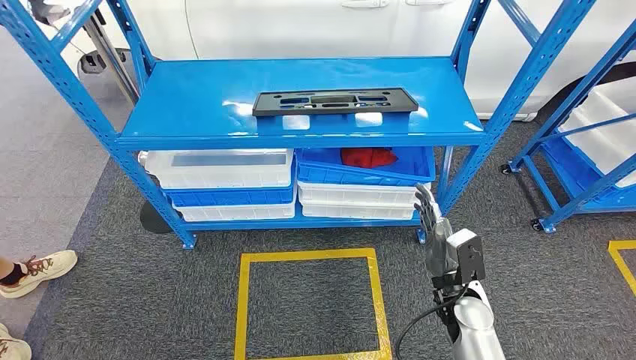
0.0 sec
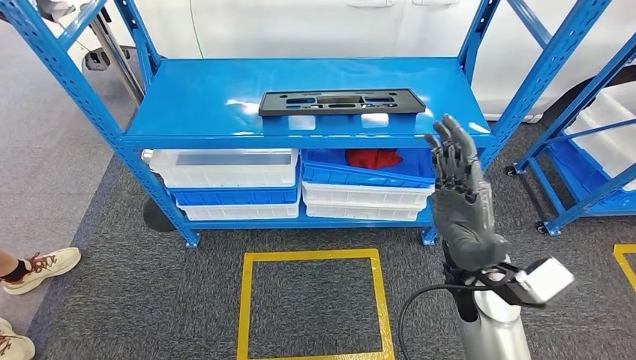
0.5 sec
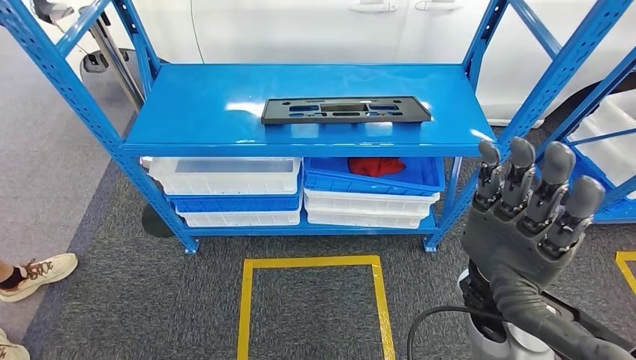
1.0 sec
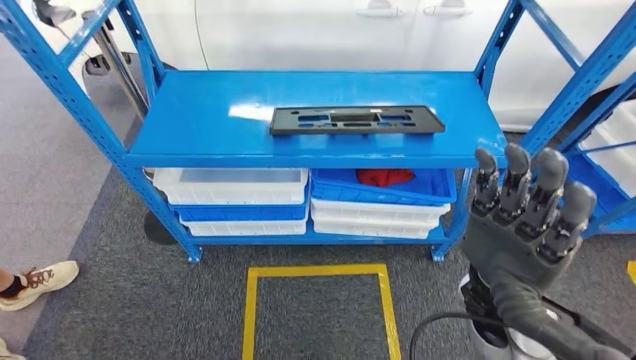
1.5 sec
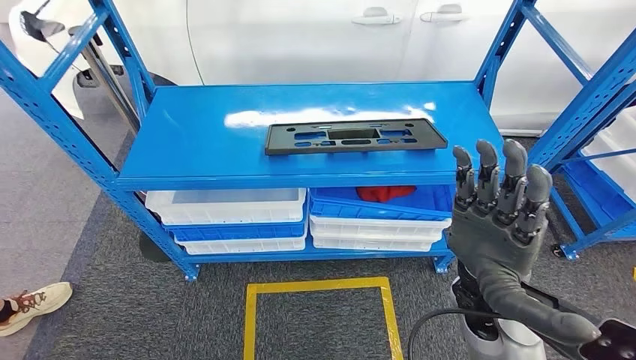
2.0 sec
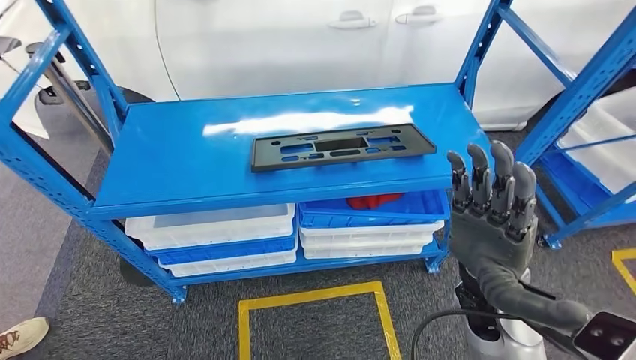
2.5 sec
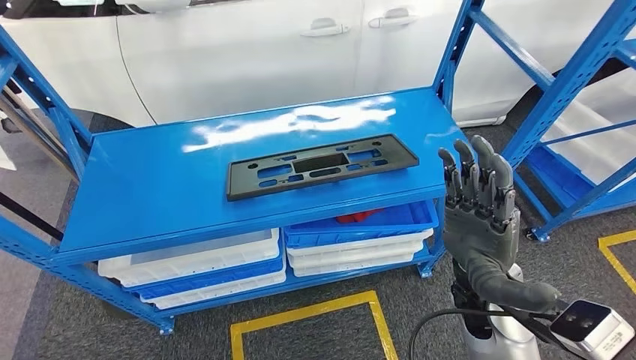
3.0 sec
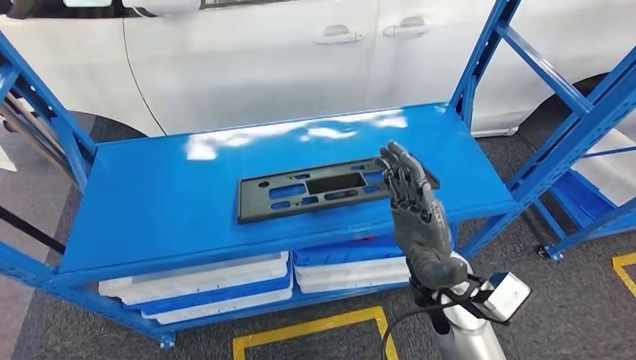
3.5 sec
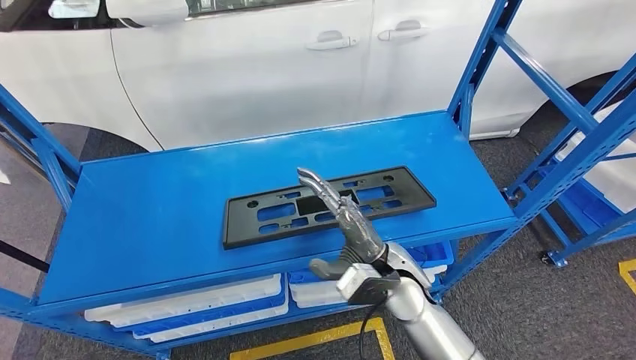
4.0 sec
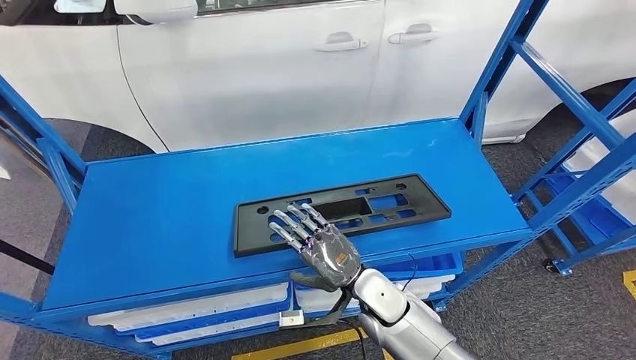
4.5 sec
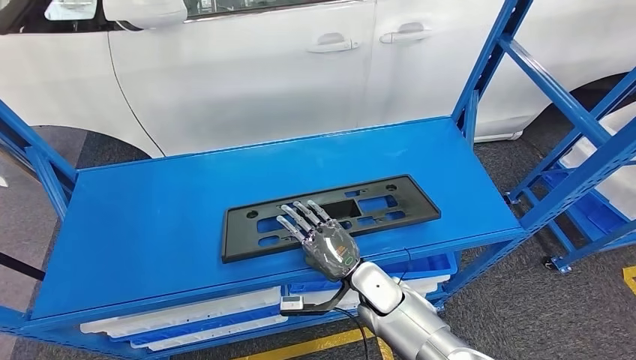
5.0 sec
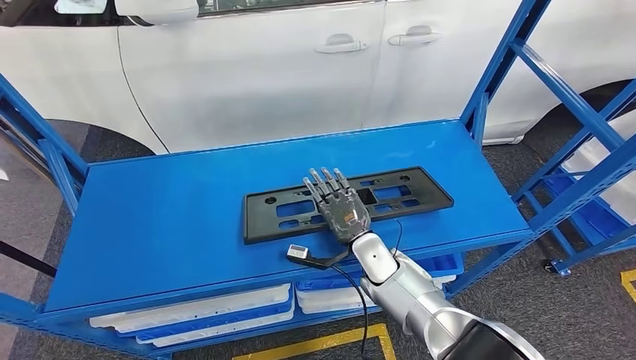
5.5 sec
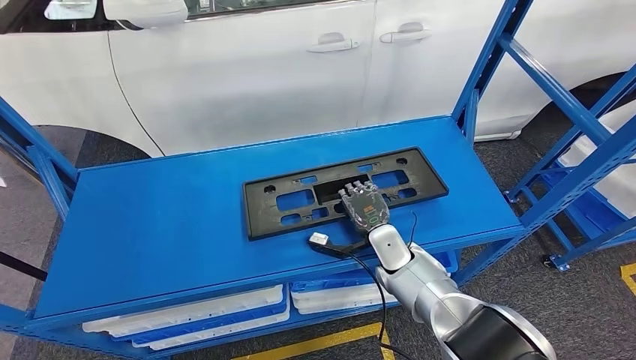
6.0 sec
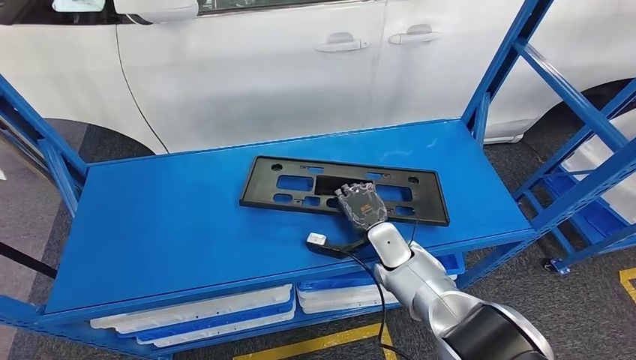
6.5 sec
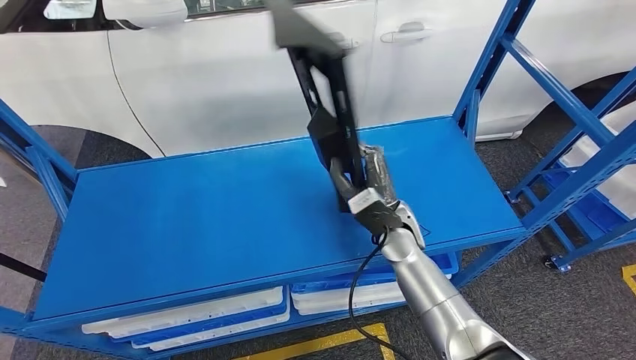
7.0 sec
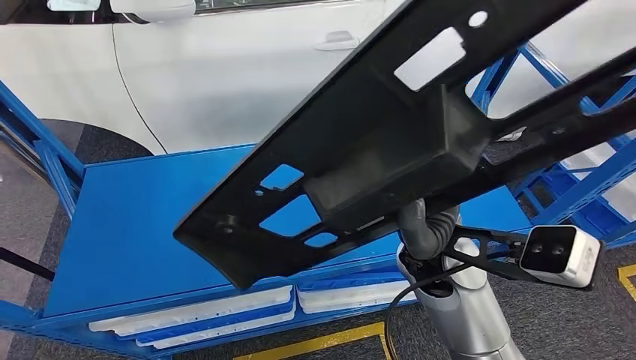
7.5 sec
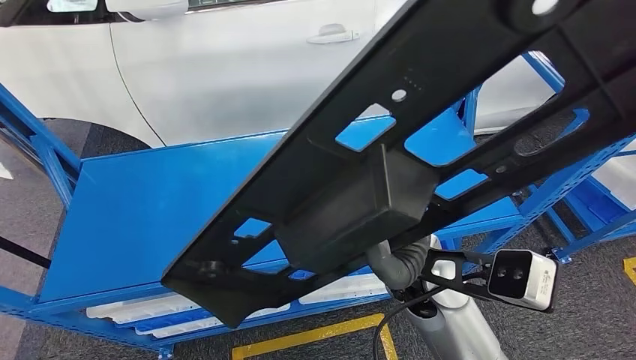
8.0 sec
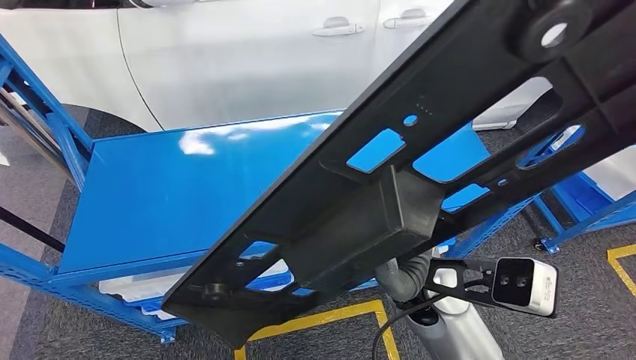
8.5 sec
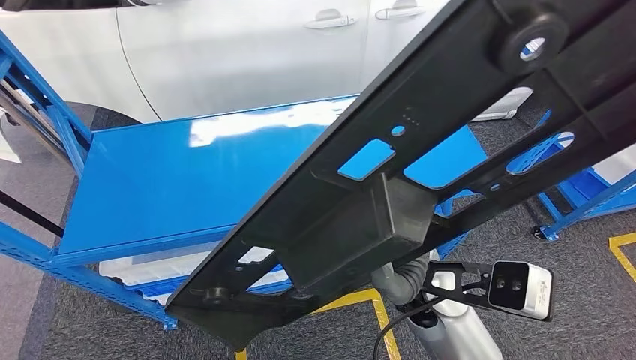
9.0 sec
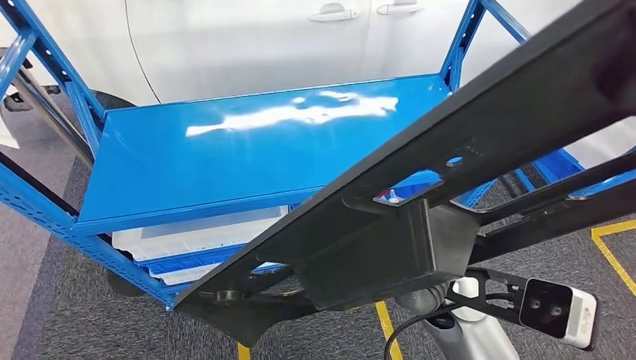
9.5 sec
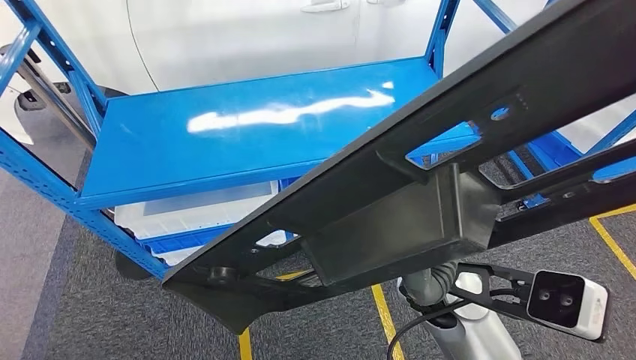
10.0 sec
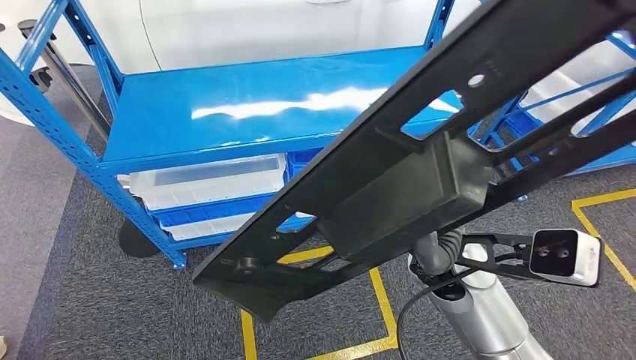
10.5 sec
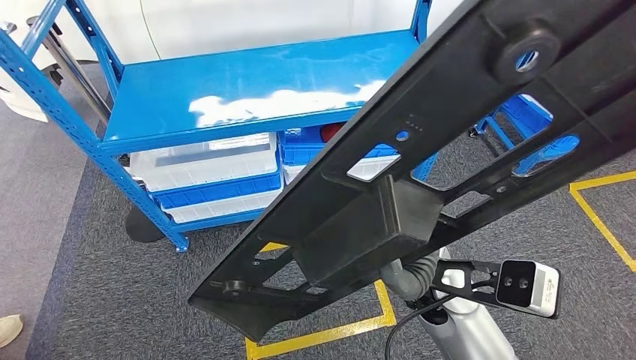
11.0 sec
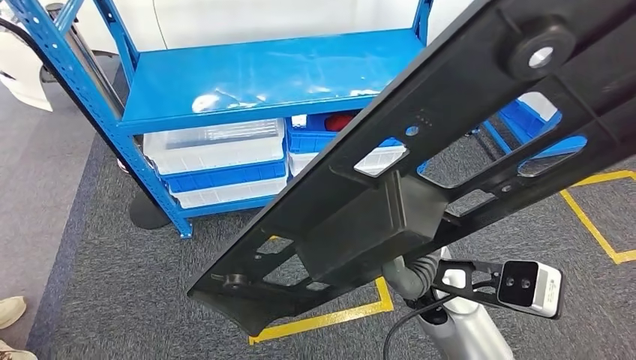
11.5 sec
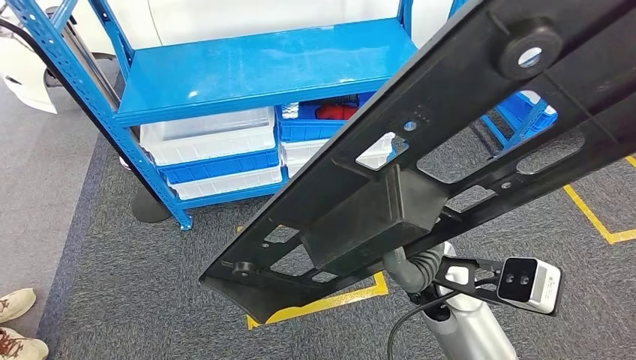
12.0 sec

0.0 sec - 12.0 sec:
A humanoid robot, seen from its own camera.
Step, 0.0 sec - 7.5 sec: Pick up the large material from the shelf.

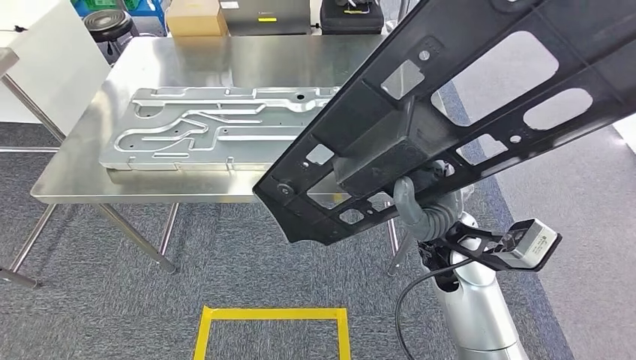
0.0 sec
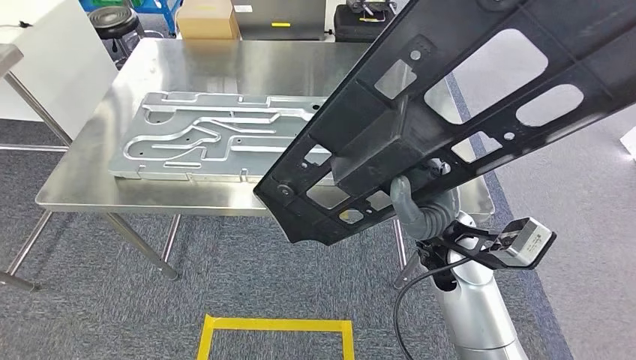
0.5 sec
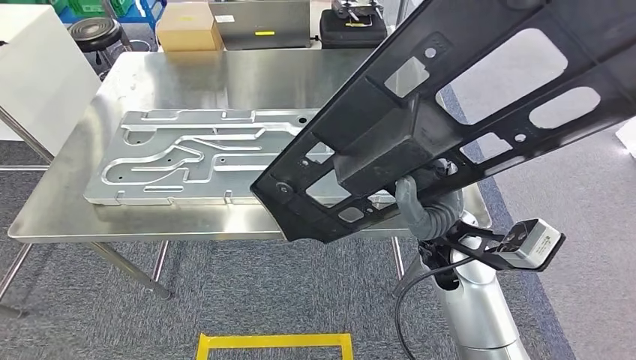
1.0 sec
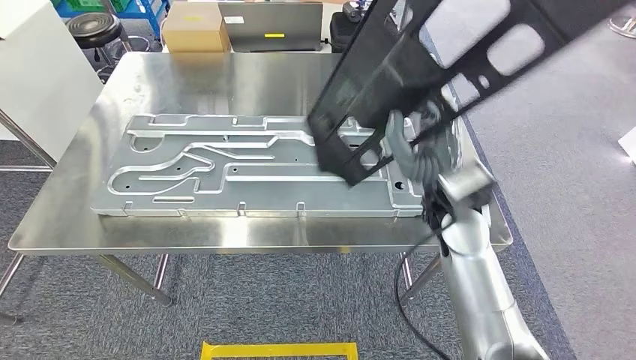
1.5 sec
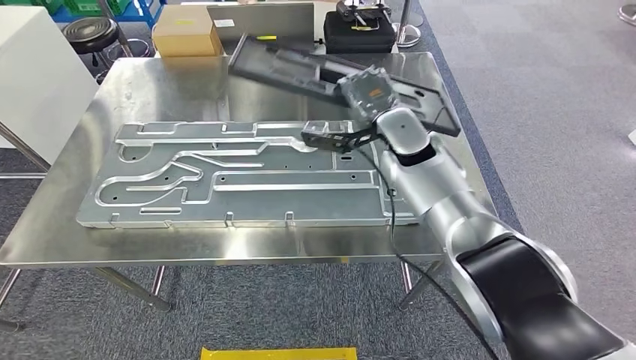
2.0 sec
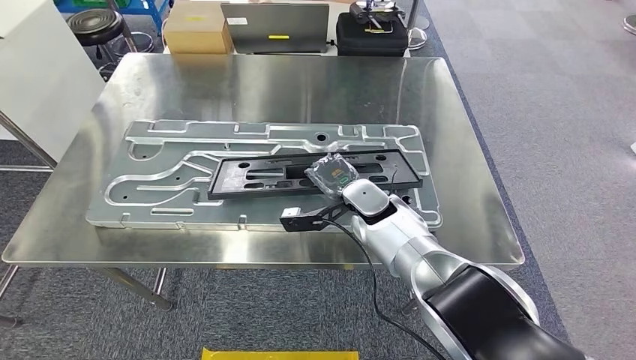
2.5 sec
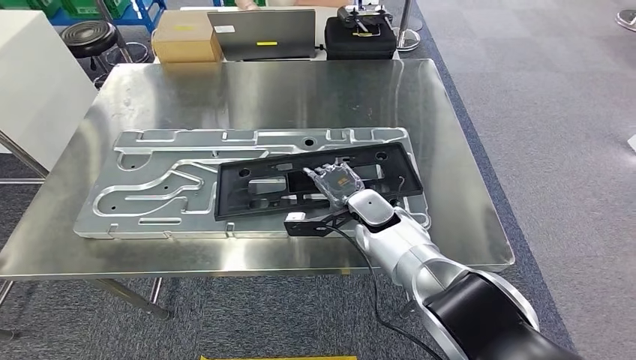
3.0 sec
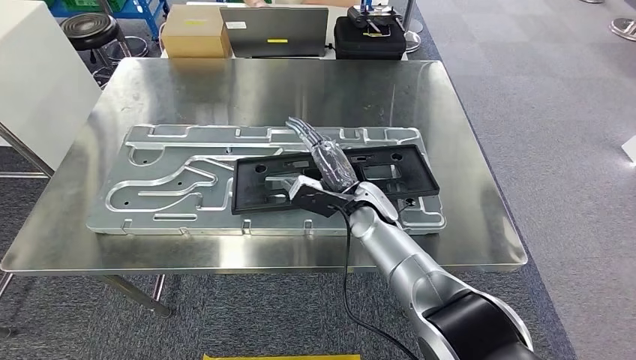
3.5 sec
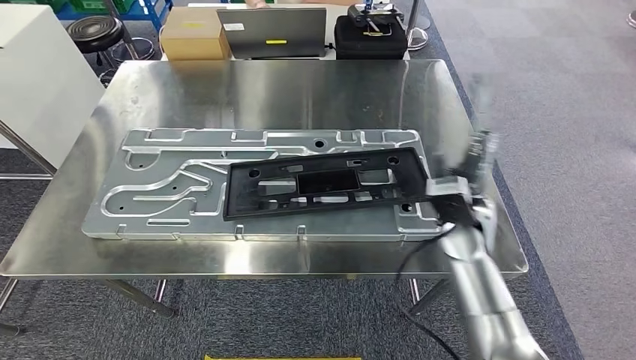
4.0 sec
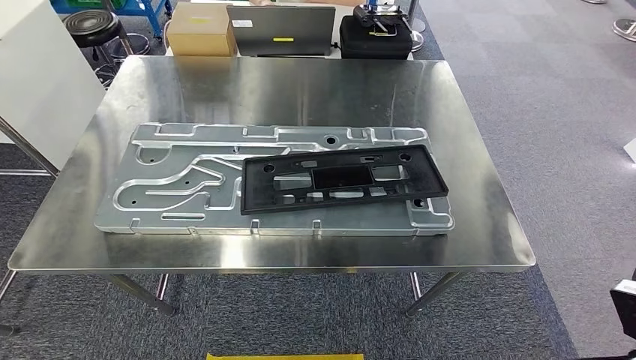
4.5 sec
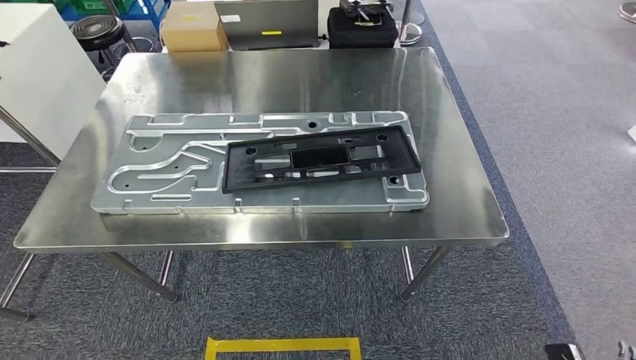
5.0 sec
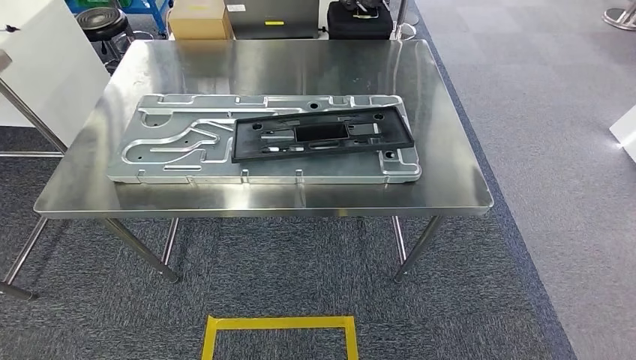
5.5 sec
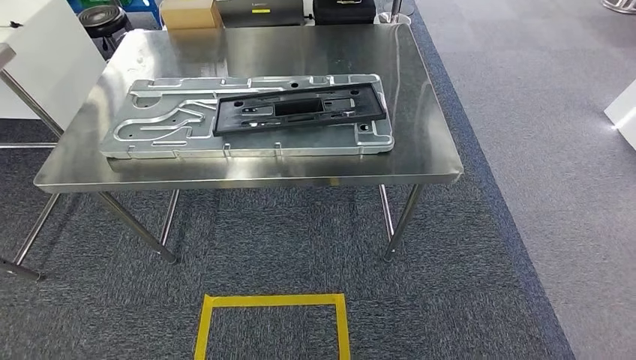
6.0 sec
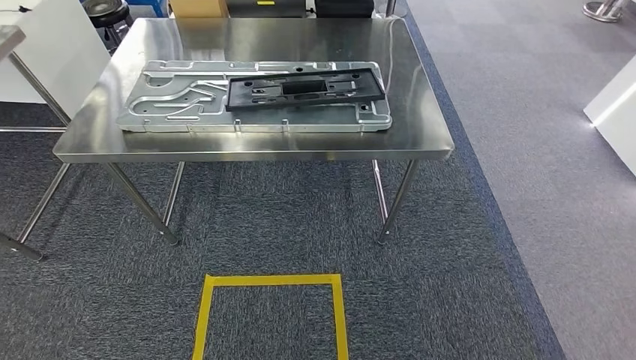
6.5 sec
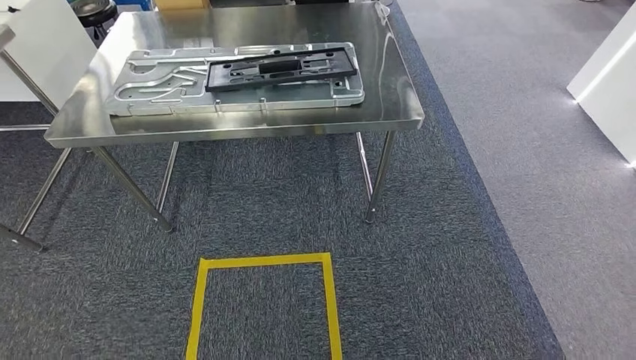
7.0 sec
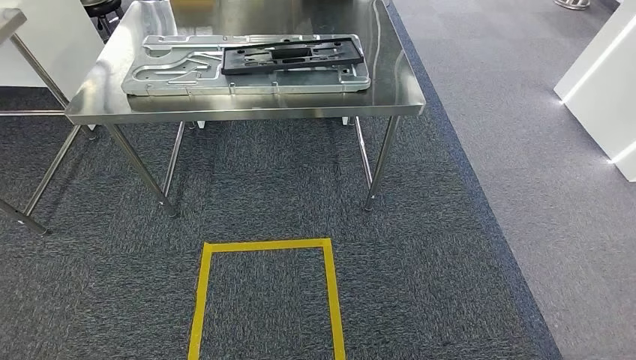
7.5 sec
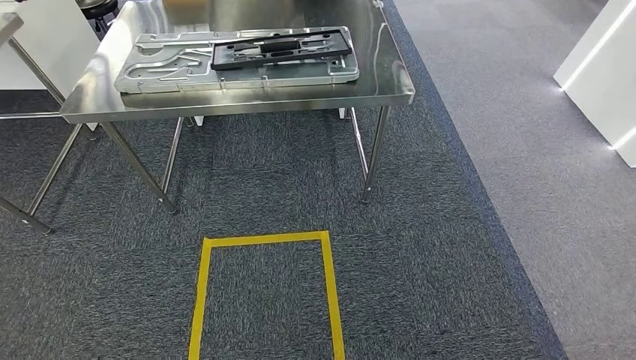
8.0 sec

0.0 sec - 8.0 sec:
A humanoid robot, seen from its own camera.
Step, 1.0 sec - 5.5 sec: Insert the large material into the corresponding slot on the workbench.
Step, 7.0 sec - 8.0 sec: Move to the initial position of the shelf.
